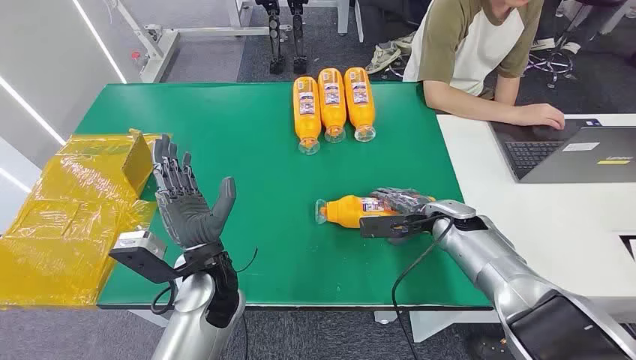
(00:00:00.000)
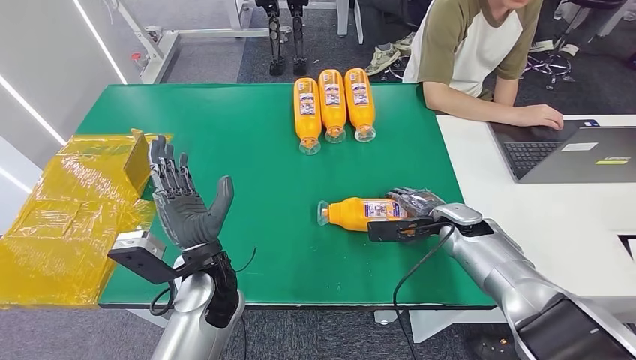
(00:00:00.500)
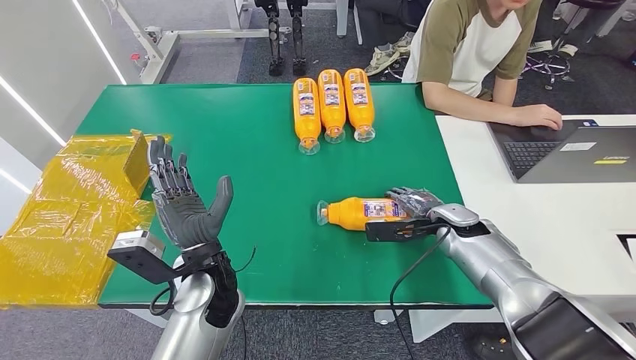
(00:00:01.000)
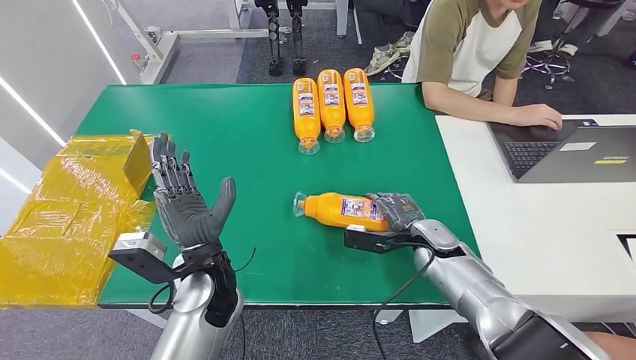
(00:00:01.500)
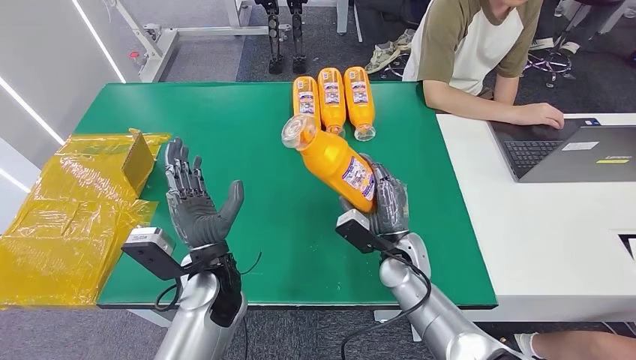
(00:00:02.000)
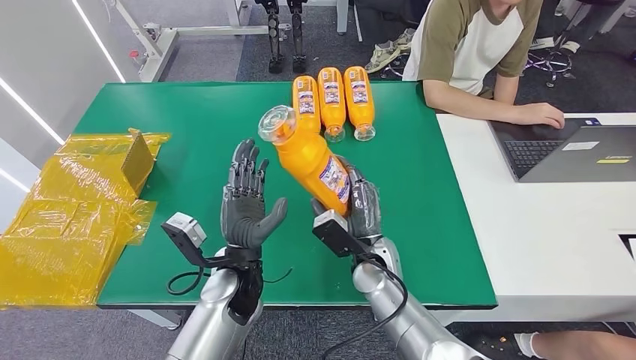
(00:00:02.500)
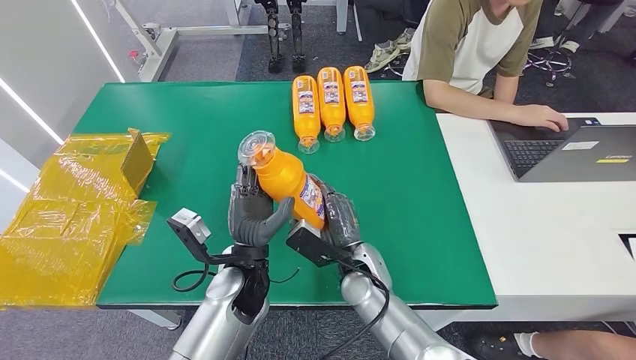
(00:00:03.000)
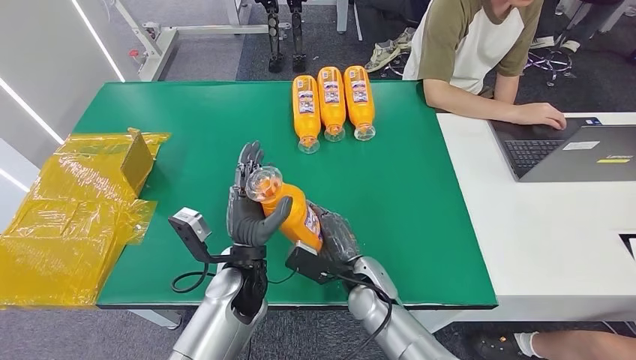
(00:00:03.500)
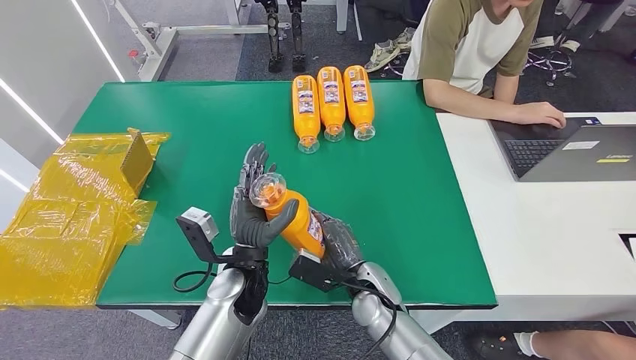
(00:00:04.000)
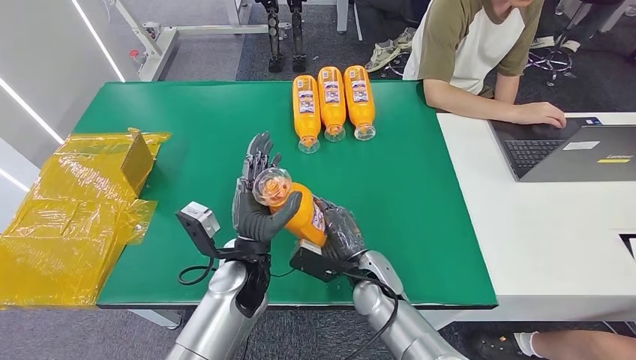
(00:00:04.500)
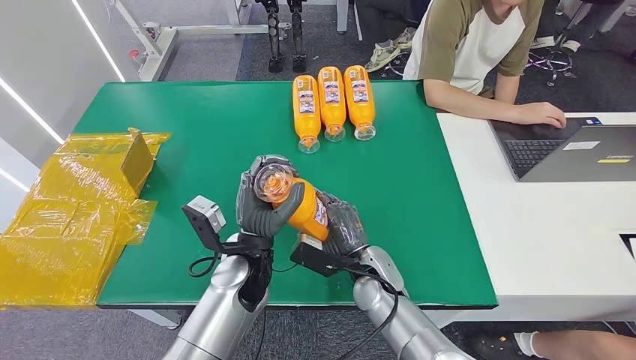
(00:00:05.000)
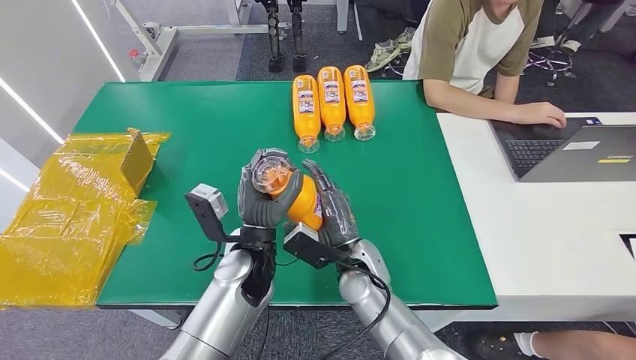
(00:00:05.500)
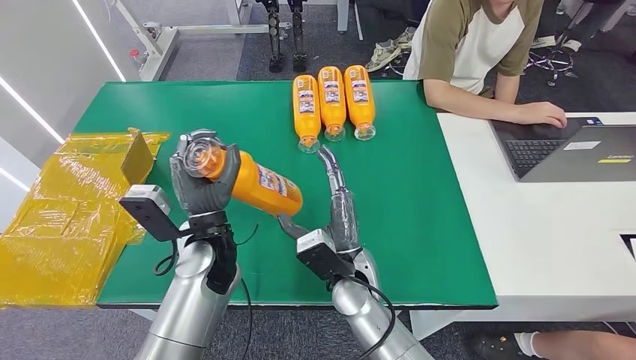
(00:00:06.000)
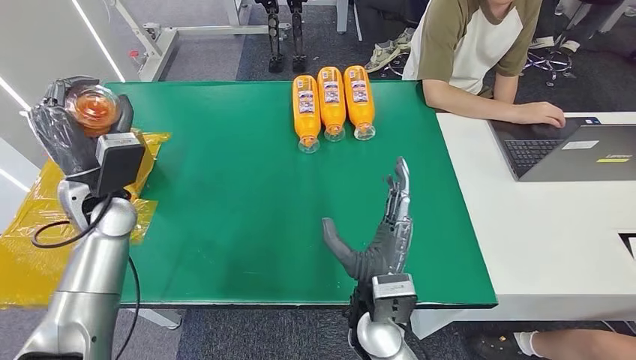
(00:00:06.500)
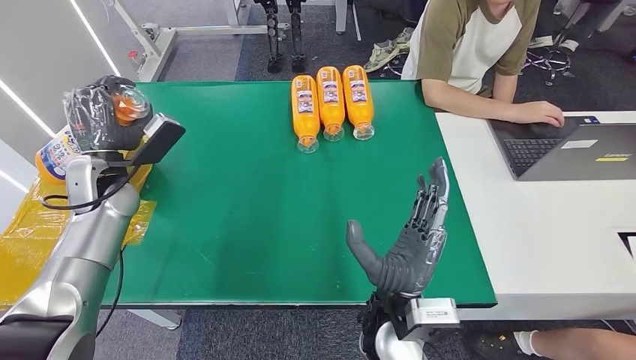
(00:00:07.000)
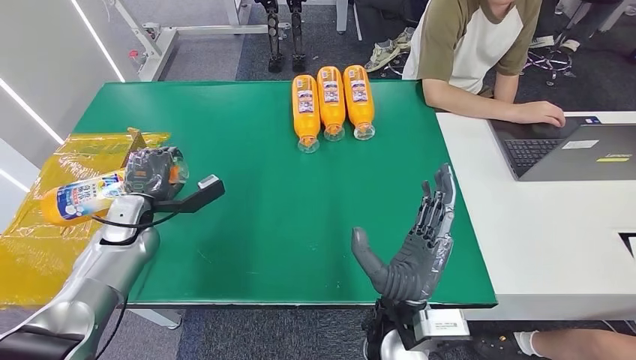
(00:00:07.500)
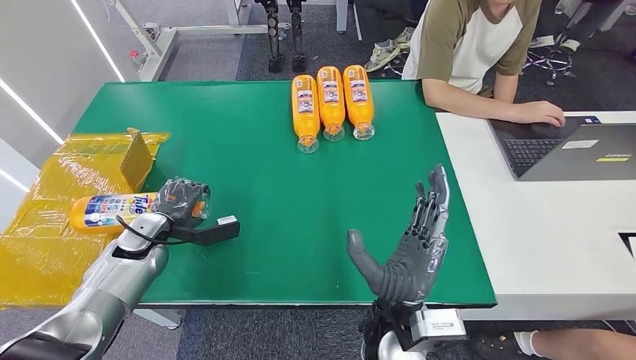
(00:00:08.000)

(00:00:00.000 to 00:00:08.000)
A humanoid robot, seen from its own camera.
Step, 00:00:00.000 - 00:00:02.000: Pick up the bottle from the table.
Step, 00:00:02.500 - 00:00:08.000: Turn the bottle to the front side.
00:00:02.000 - 00:00:04.000: The right hand goes approximately 10 cm to the left and backward.
00:00:04.000 - 00:00:06.000: The right hand moves upward, some 5 cm. The left hand shifts by some 10 cm.
00:00:06.000 - 00:00:08.000: The right hand travels backward by roughly 10 cm; the left hand moves to the left, approximately 25 cm.
